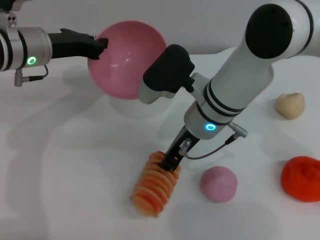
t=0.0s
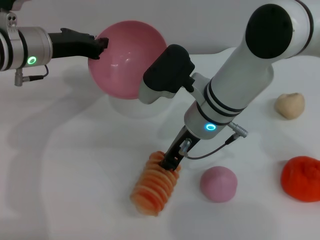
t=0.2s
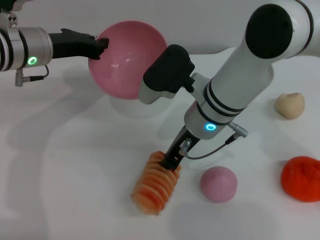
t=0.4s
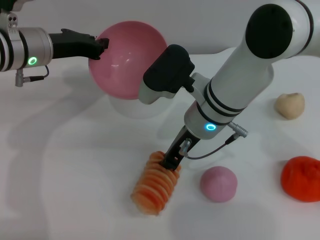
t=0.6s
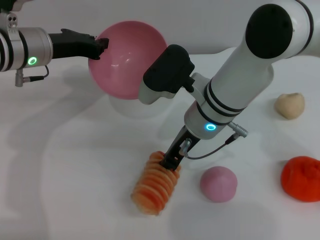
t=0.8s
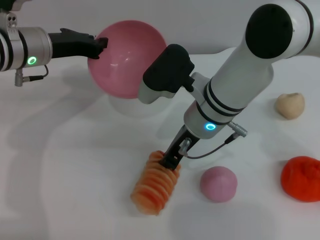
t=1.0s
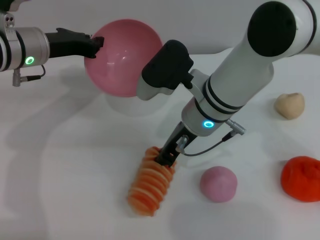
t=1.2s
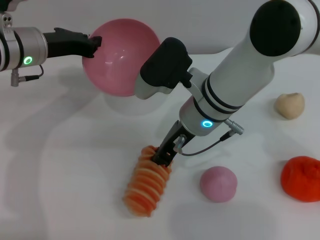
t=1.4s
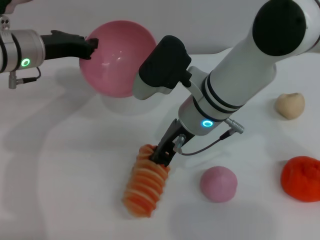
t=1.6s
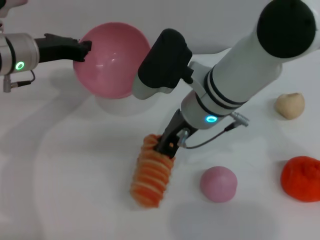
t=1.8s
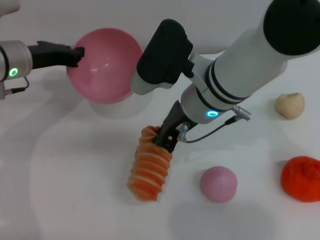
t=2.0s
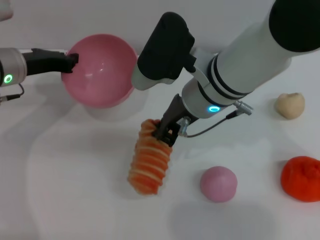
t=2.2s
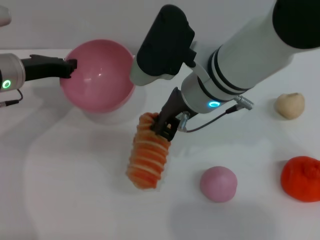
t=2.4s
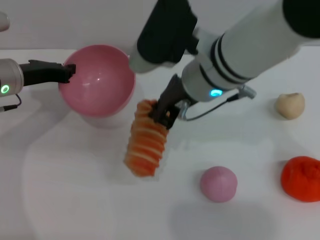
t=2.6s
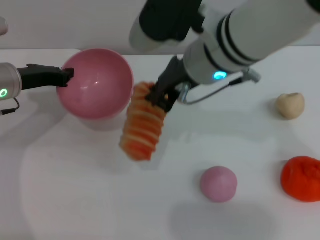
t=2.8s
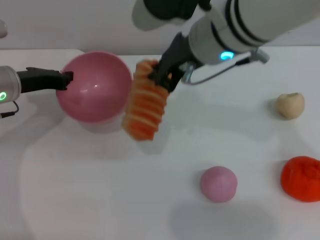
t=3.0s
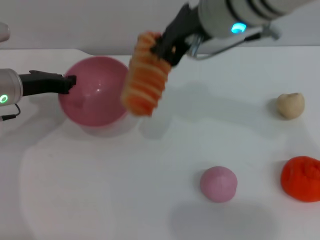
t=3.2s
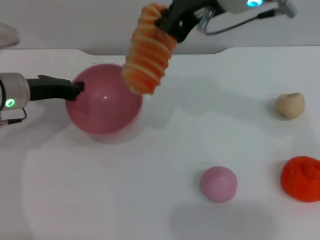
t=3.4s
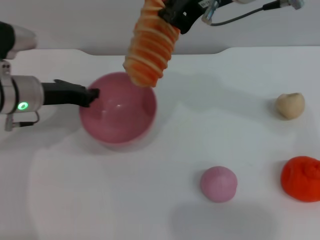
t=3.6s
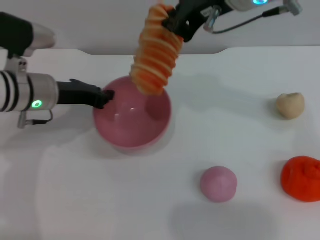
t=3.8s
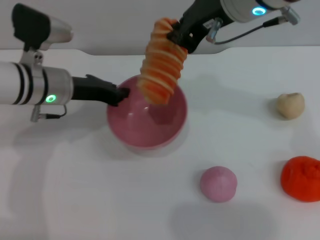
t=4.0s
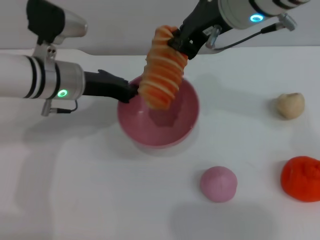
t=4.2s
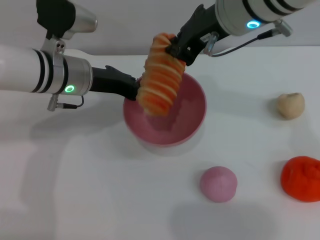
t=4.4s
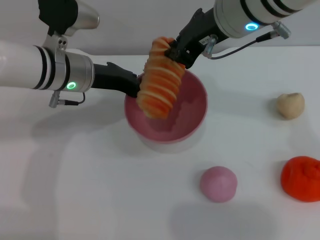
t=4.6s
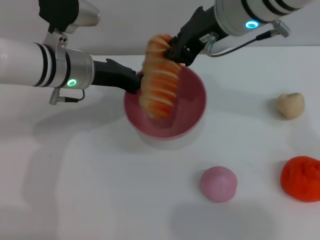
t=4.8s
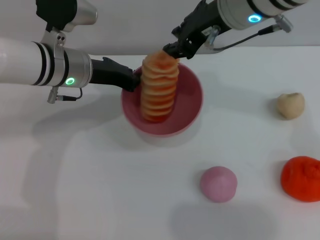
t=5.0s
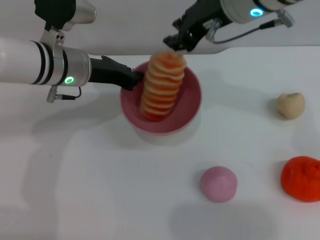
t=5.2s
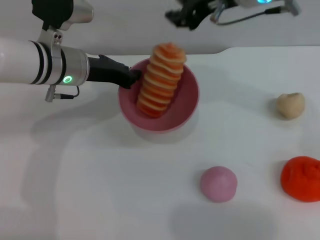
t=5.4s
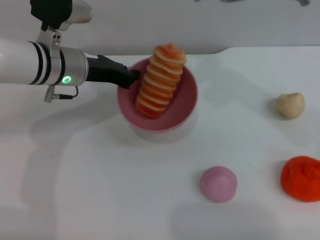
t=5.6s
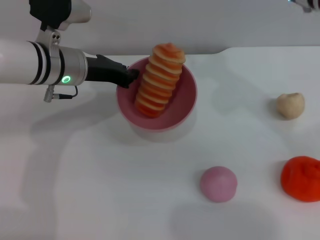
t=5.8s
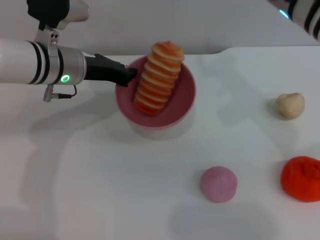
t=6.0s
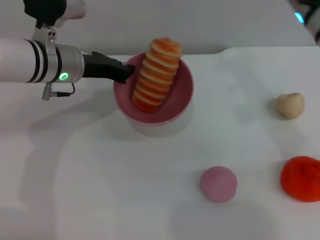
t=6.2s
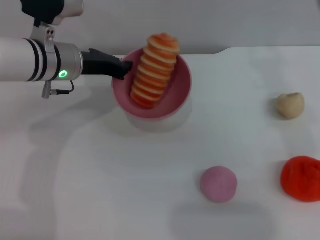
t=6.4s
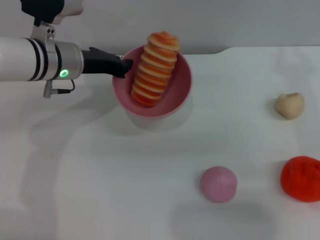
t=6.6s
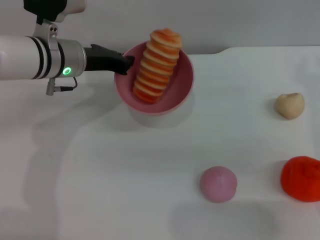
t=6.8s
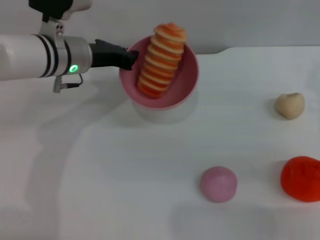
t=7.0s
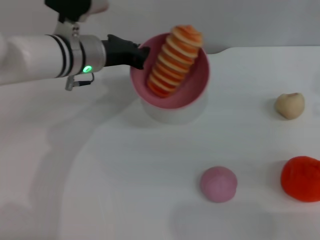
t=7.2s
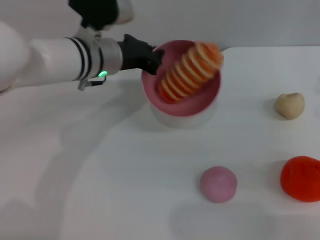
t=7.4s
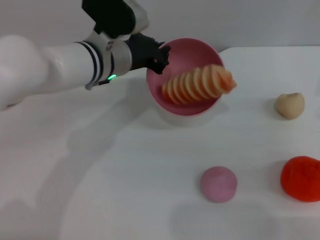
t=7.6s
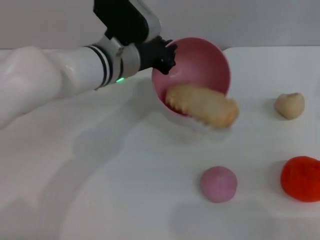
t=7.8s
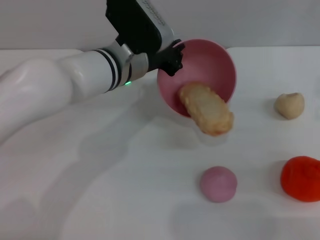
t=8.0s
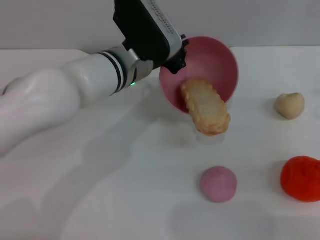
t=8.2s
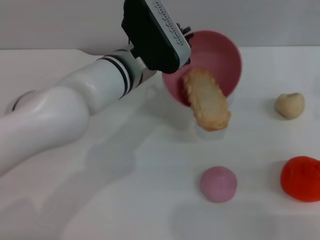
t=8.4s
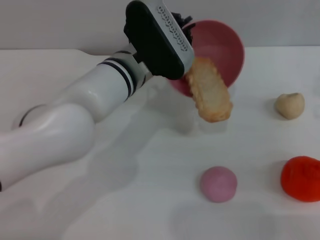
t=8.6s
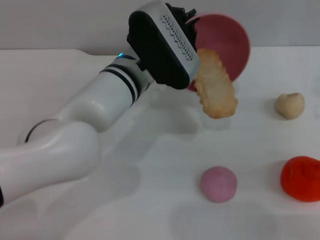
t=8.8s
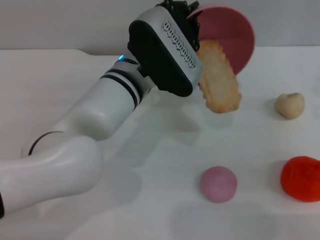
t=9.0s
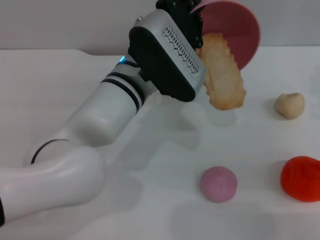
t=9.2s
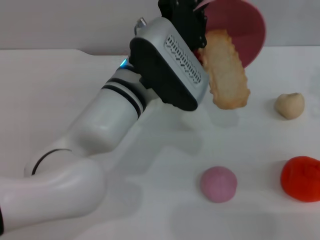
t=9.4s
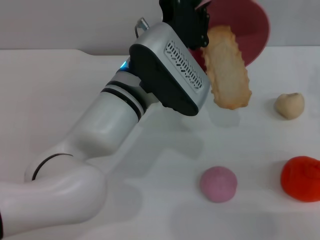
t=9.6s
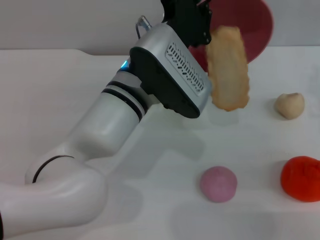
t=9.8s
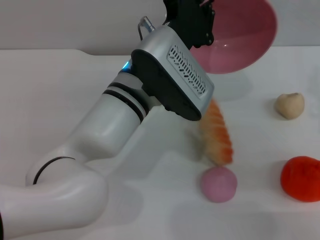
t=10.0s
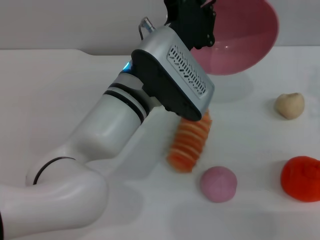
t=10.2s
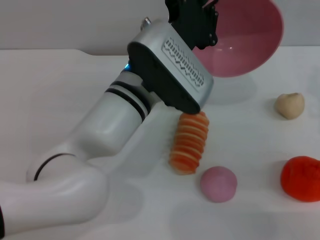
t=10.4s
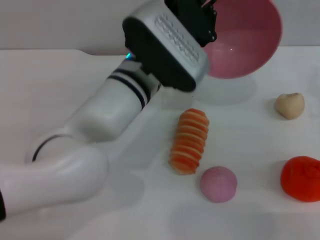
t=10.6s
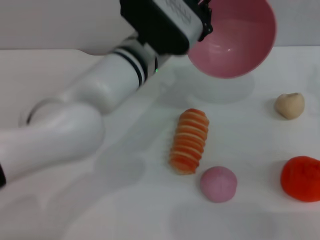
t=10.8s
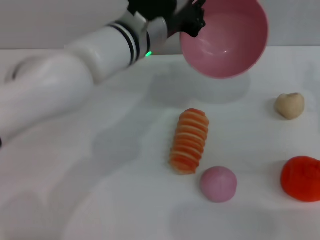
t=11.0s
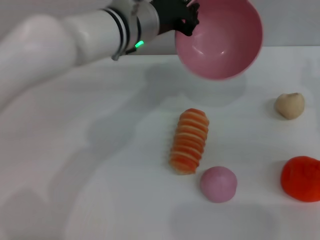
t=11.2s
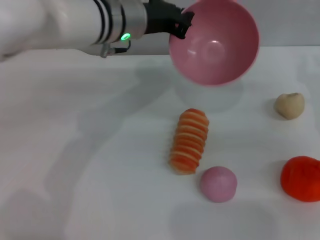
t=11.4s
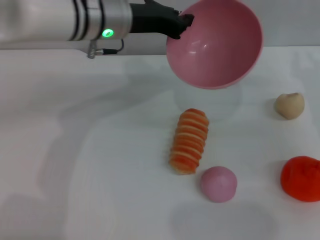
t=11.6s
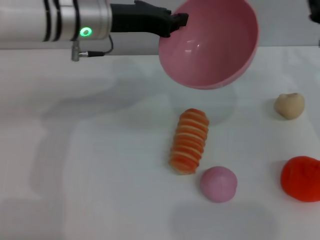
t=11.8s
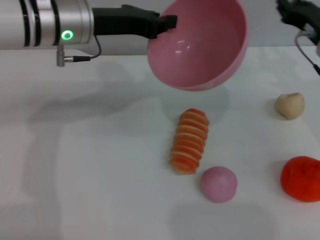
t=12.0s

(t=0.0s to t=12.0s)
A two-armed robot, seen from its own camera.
Task of the whole recording: put the bread into the pink bowl and pour it out repeatedly.
Step, t=0.0s - t=2.6s: Pick up the bread with the right gripper.
Step, t=2.8s - t=5.2s: Place the bread into the bowl.
Step, t=5.4s - t=10.6s: Pour the bread out of the bowl.
t=0.0s - t=1.6s: The grippers move only a little.
t=1.6s - t=3.0s: The left gripper ends up some 5 cm from where it was, while the right gripper heads upward, covering roughly 10 cm.
t=3.0s - t=4.4s: The left gripper goes approximately 10 cm to the right.
t=4.4s - t=6.0s: The right gripper moves roughly 5 cm, and opens.
t=6.0s - t=7.6s: The right gripper heads to the right and downward, covering roughly 20 cm; the left gripper is displaced to the right by approximately 5 cm.
t=7.6s - t=9.0s: The left gripper shifts roughly 5 cm to the right and backward.
t=9.0s - t=10.4s: The grippers move only a little.
t=10.4s - t=12.0s: The right gripper goes about 10 cm forward; the left gripper moves to the left, forward and upward, roughly 15 cm.

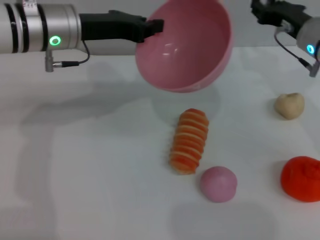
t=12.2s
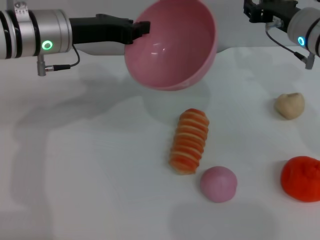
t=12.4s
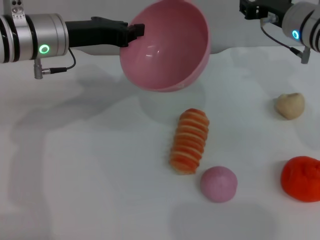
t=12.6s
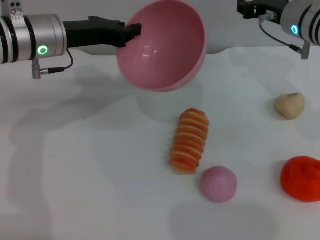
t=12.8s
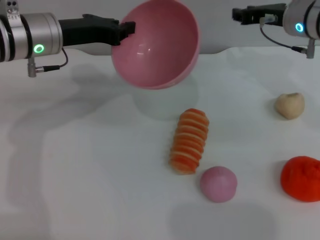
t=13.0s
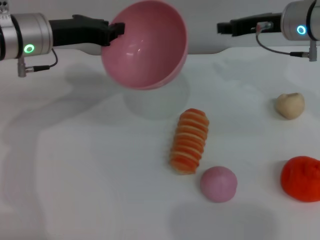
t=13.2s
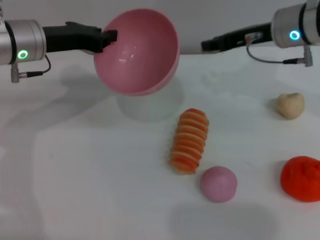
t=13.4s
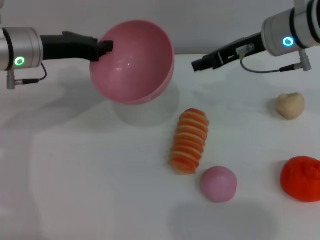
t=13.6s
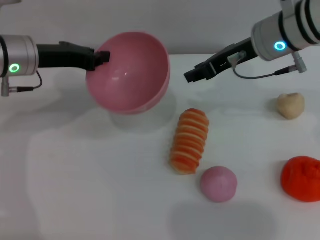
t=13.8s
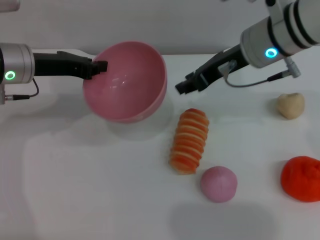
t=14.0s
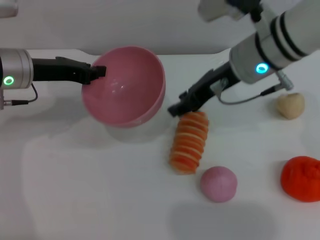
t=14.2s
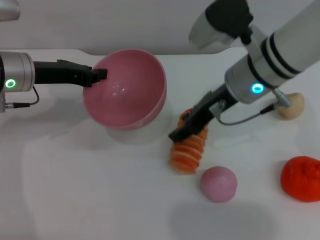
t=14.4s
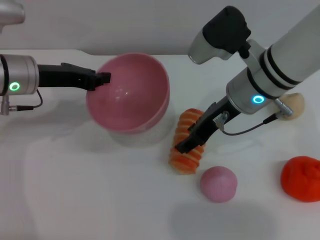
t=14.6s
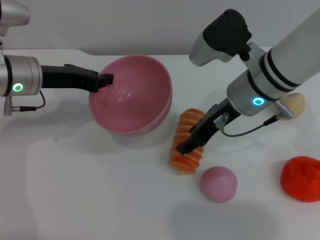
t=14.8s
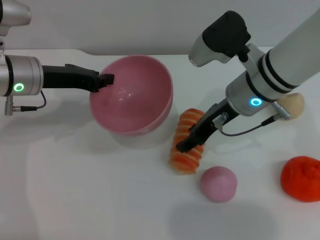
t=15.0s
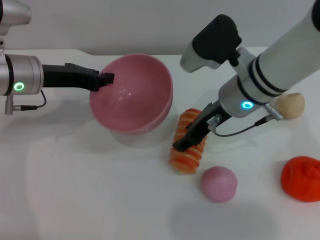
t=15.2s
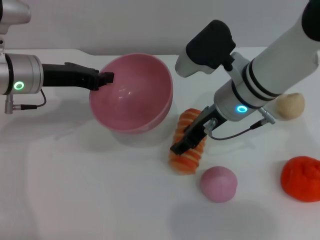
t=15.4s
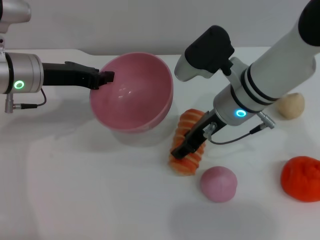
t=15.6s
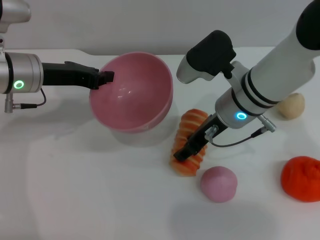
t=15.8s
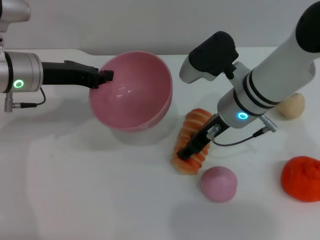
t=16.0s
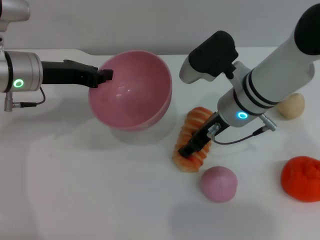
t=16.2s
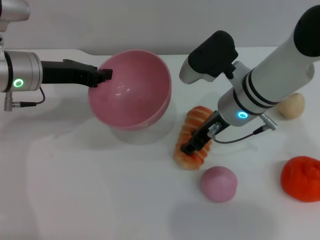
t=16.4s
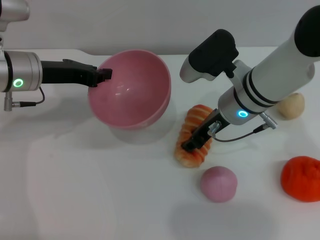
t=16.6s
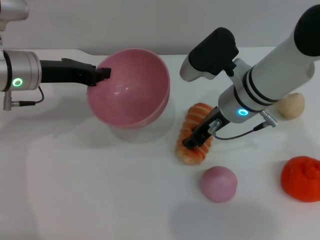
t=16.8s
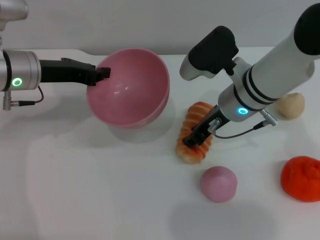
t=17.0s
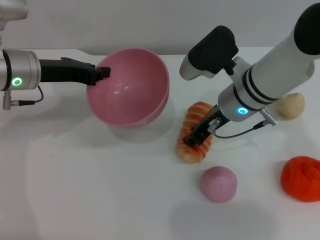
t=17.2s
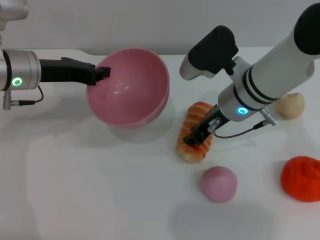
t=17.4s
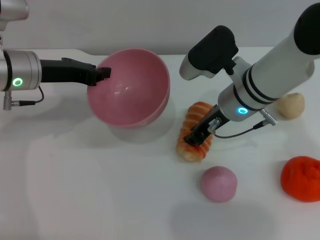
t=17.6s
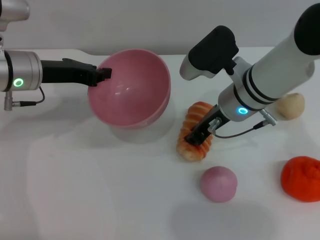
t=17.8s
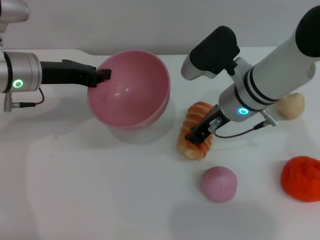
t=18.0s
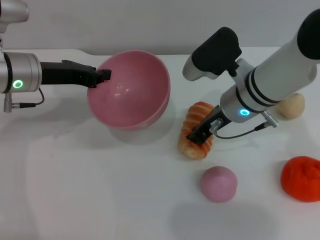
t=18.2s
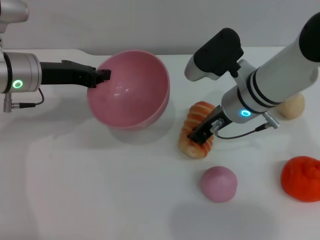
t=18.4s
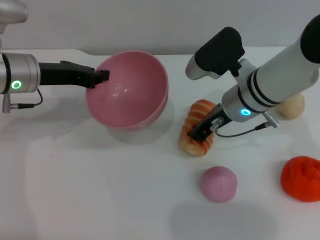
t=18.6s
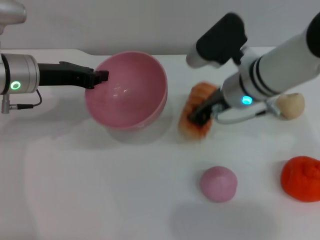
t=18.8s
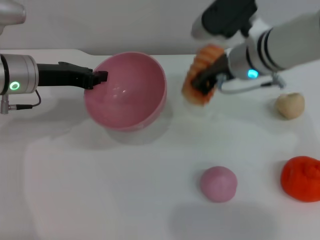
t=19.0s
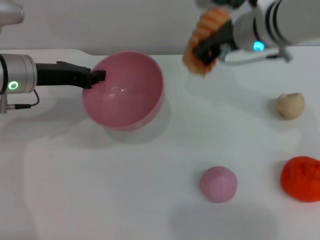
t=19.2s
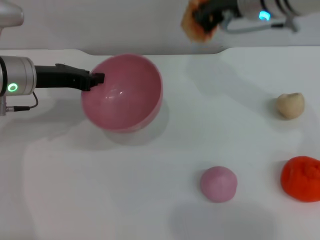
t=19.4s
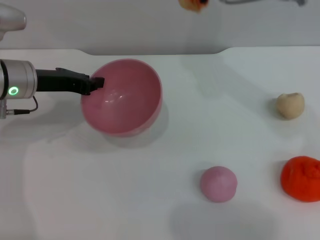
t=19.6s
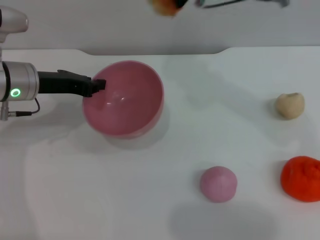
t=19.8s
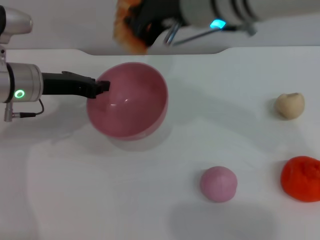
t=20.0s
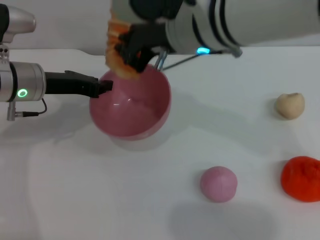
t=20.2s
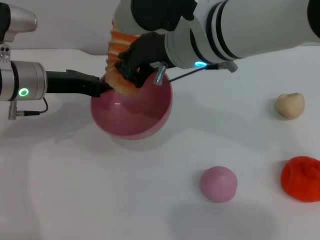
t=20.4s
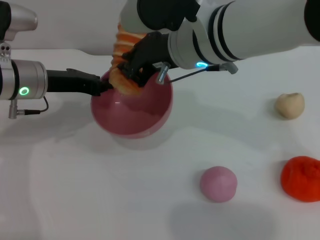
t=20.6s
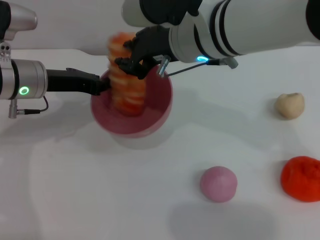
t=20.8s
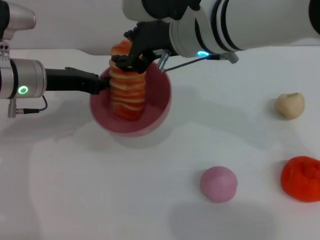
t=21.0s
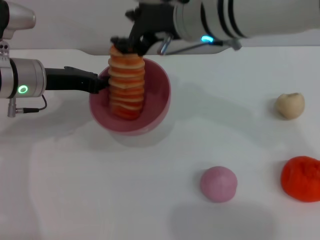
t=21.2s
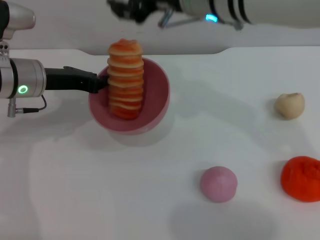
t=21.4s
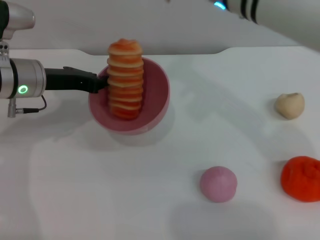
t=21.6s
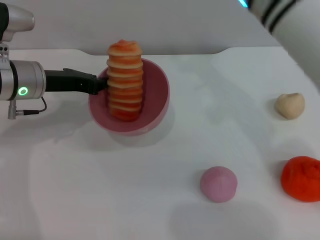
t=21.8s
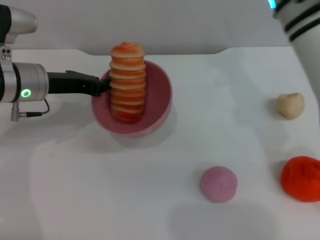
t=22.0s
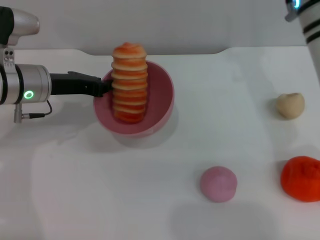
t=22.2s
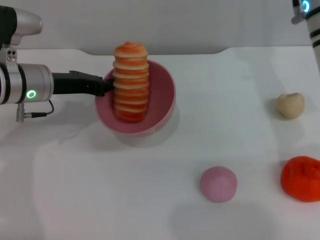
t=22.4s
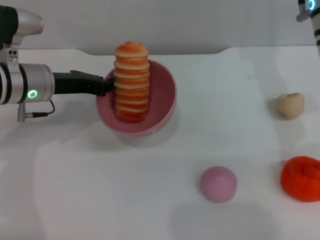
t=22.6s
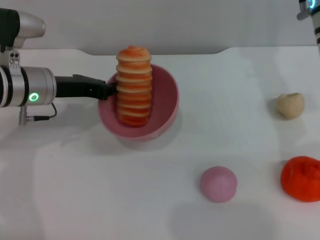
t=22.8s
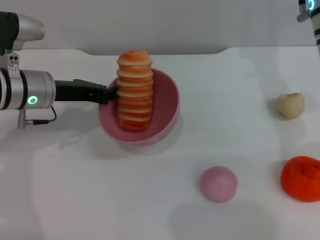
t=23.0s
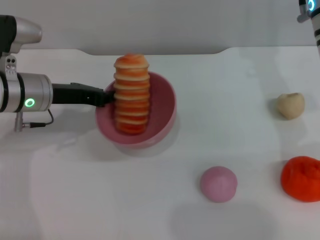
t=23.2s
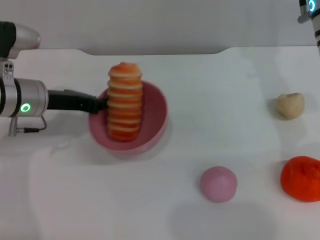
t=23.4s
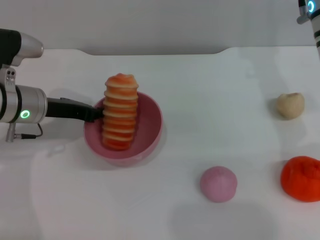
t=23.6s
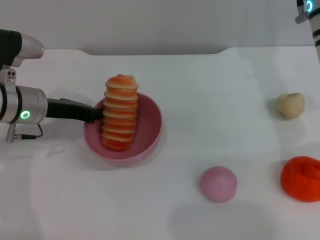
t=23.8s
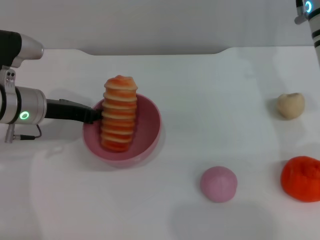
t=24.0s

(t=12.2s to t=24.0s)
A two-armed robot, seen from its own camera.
Task of the whole recording: put the bread into the pink bowl and pour it out repeatedly.
Step, t=12.2s - t=18.8s: Pick up the bread with the right gripper.
Step, t=19.0s - t=21.4s: Place the bread into the bowl.
t=12.2s - t=13.6s: The left gripper heads to the left, covering about 5 cm. Meanwhile the right gripper heads to the left and upward, covering about 10 cm.
t=13.6s - t=15.2s: The right gripper shifts roughly 10 cm to the left and backward, and opens.
t=15.2s - t=16.6s: The grippers move only a little.
t=16.6s - t=18.2s: The right gripper closes its fingers.
t=18.2s - t=19.6s: The right gripper shifts about 15 cm upward.
t=19.6s - t=21.0s: The right gripper shifts some 10 cm to the left and downward, and opens its fingers.
t=21.0s - t=22.6s: The right gripper goes approximately 15 cm to the right.
t=22.6s - t=24.0s: The grippers stay close to where they were, moving slightly.
